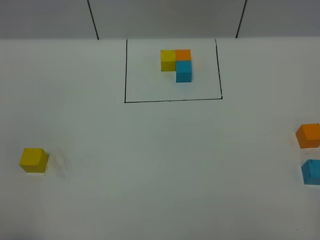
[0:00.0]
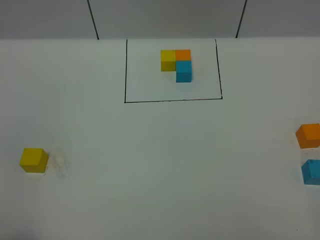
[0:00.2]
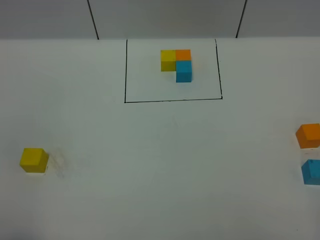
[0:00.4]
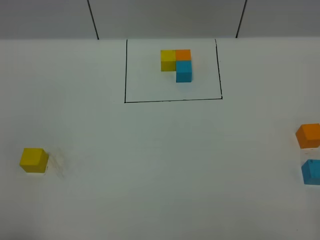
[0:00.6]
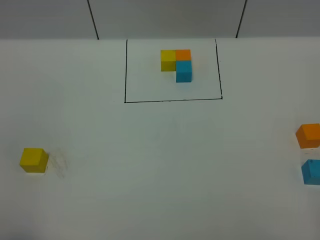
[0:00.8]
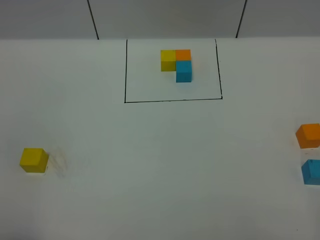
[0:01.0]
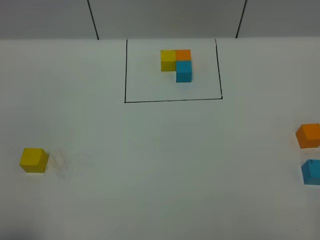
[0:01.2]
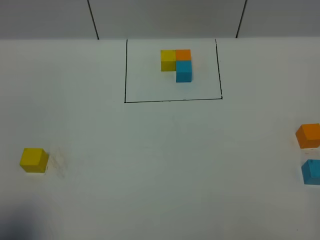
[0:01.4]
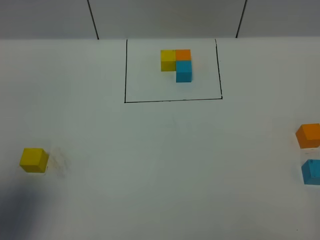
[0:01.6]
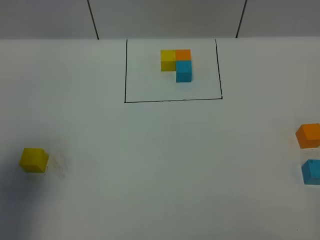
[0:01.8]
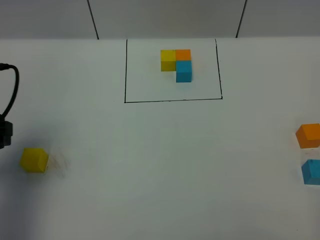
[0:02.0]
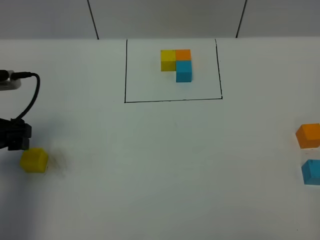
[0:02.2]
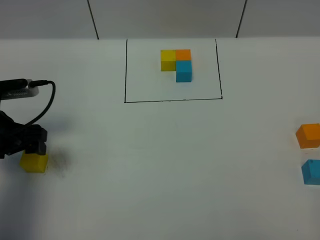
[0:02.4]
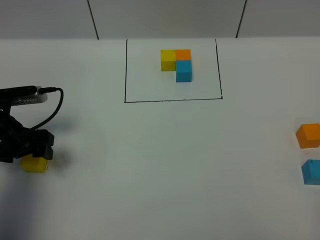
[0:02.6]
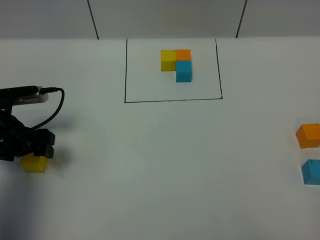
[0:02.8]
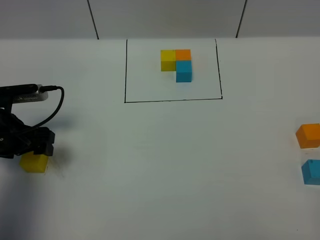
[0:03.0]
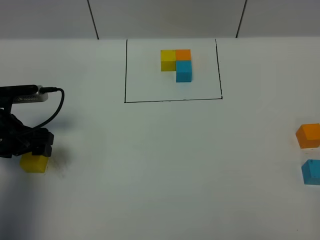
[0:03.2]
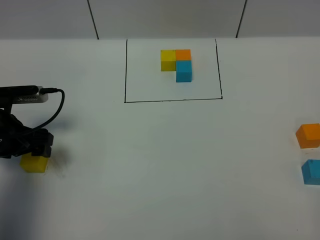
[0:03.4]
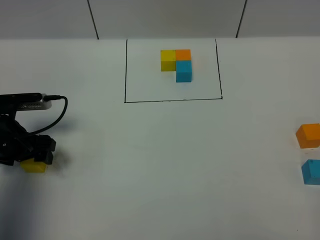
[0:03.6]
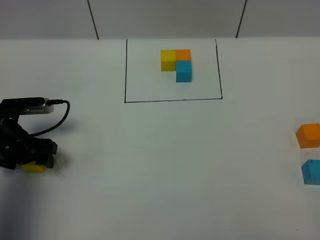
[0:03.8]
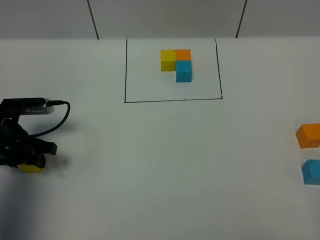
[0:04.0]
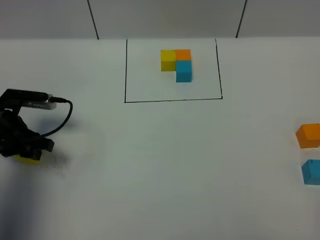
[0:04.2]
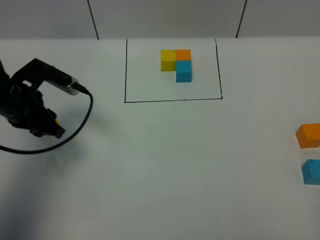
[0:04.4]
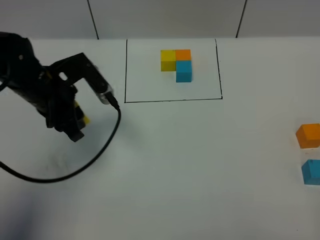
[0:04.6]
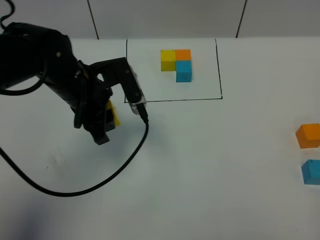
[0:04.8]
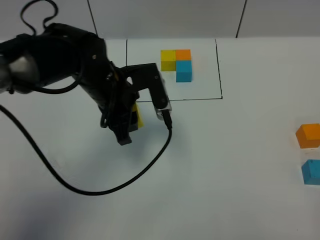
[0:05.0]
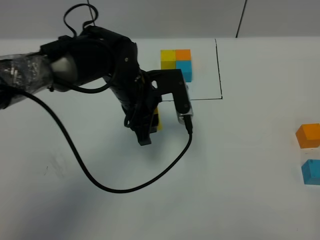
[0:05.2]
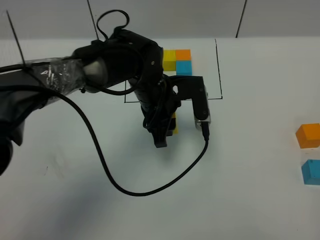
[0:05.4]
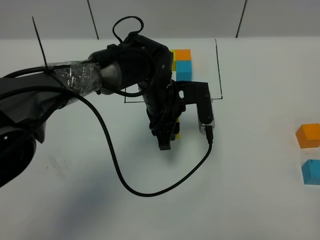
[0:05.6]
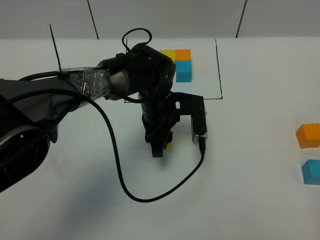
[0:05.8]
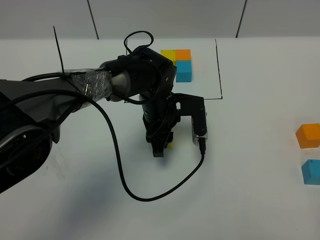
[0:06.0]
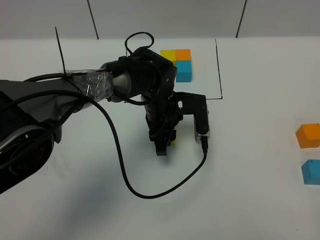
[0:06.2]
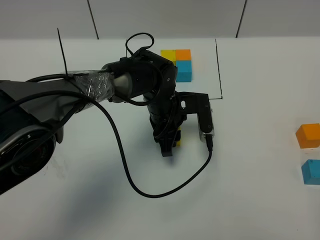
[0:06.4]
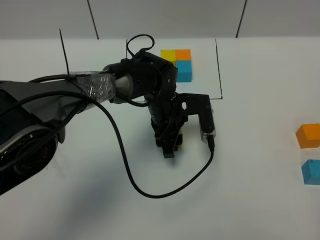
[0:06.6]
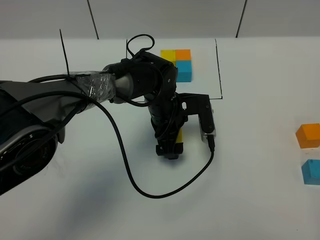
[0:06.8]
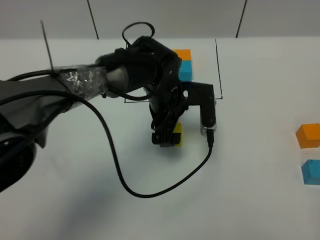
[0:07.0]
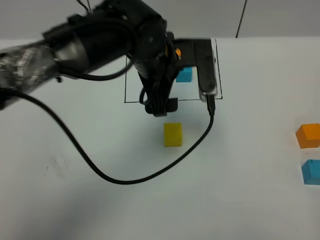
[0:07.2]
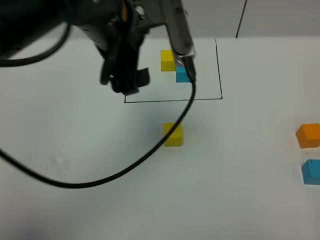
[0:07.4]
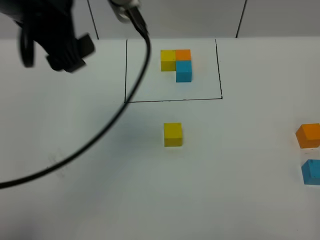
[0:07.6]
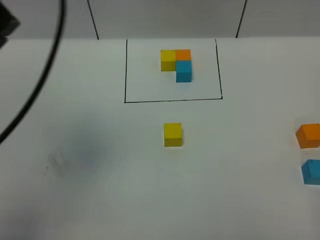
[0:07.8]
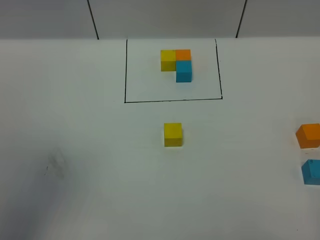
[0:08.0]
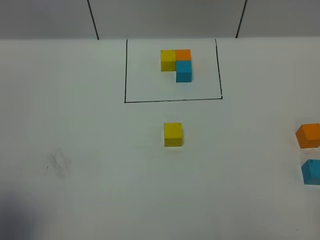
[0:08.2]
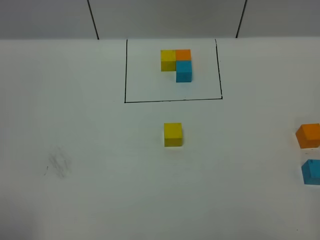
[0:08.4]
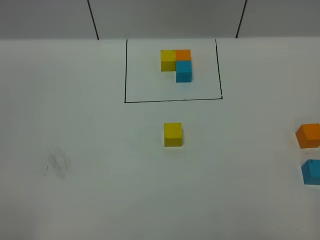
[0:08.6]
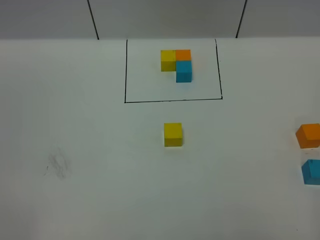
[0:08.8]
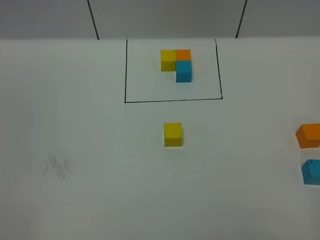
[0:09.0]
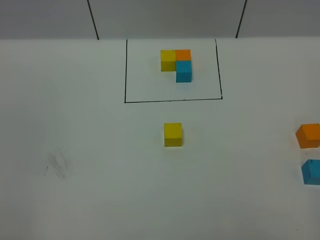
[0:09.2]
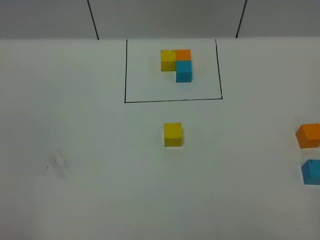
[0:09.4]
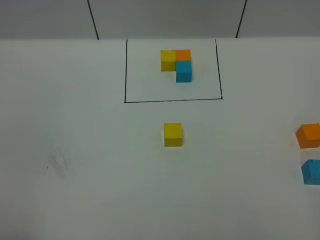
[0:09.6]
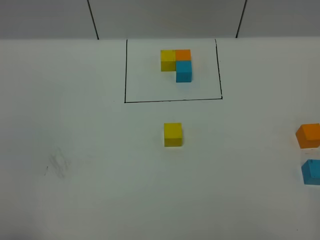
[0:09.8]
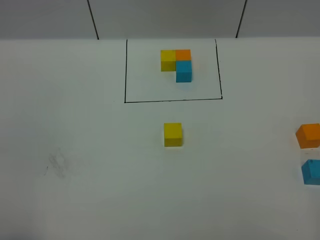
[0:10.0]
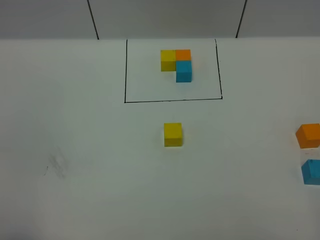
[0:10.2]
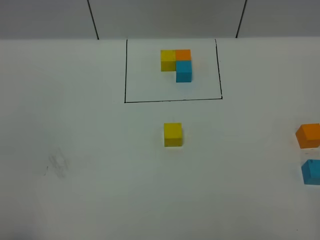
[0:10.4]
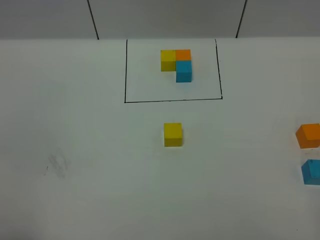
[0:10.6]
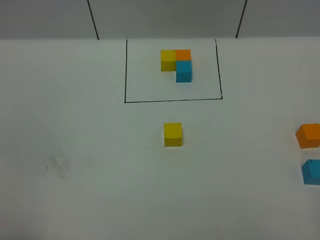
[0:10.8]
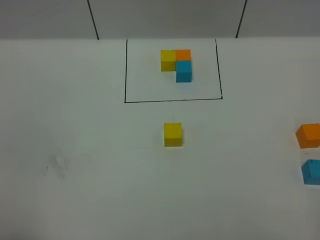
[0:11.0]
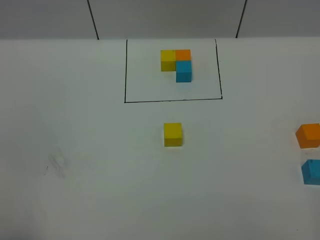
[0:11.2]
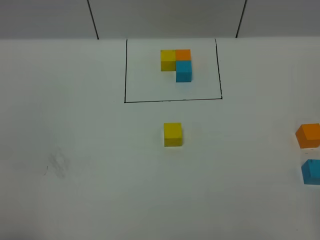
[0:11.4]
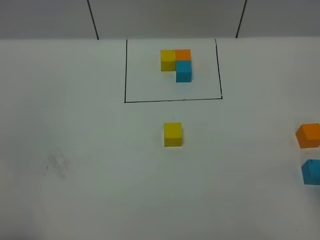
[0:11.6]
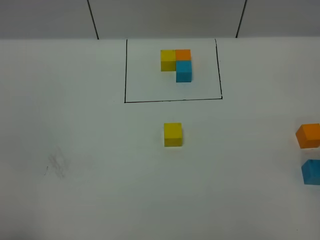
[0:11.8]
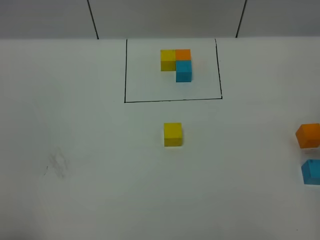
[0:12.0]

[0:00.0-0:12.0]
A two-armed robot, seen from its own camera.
Task of the whole recording: According to the building block template in front, assemble the scattered blocks together.
Step, 0:01.8 to 0:07.0: Put the yellow cube in the center of the table.
0:00.0 to 0:01.6: The left gripper heads forward, covering roughly 15 cm.
0:01.6 to 0:03.0: The left gripper moves downward and forward, approximately 25 cm.
0:03.0 to 0:04.4: The left gripper moves to the right, approximately 5 cm, and closes.
0:04.4 to 0:06.0: The left gripper moves to the right, approximately 25 cm.
0:06.0 to 0:07.6: The left gripper travels upward and to the left by some 35 cm, and opens up.
0:07.6 to 0:09.0: The left gripper heads backward and to the left, covering approximately 35 cm.

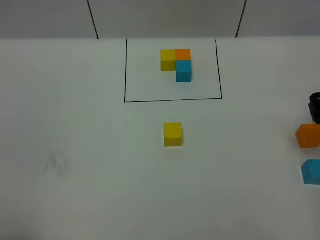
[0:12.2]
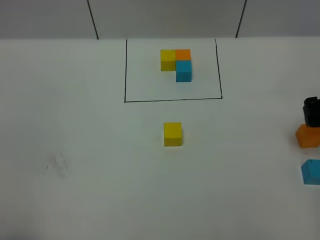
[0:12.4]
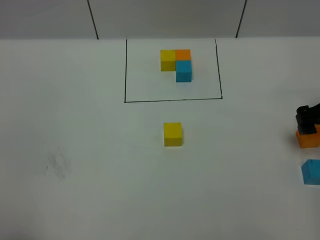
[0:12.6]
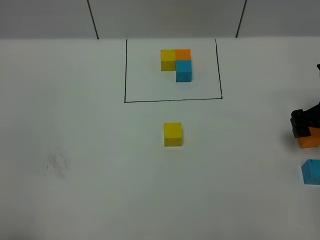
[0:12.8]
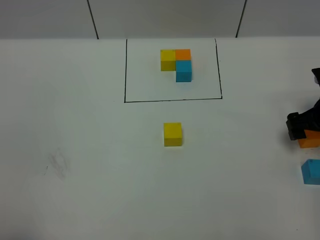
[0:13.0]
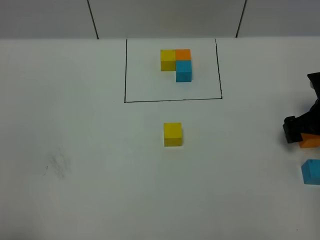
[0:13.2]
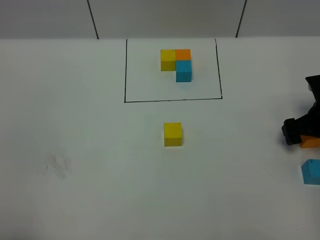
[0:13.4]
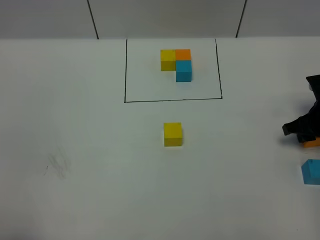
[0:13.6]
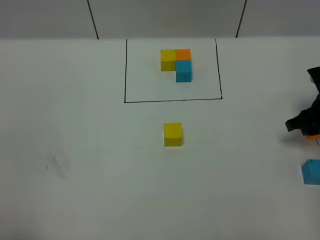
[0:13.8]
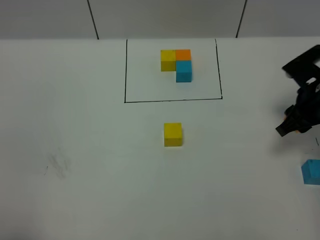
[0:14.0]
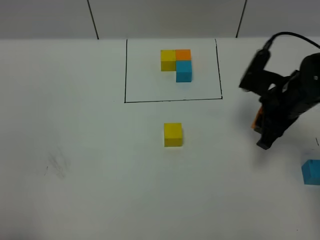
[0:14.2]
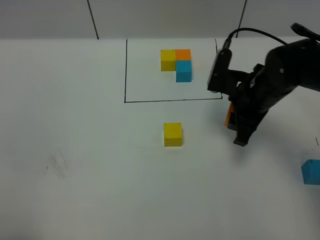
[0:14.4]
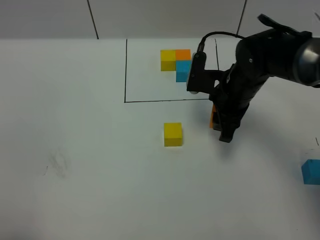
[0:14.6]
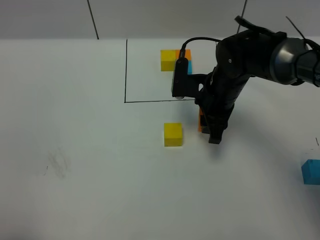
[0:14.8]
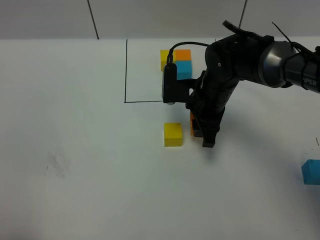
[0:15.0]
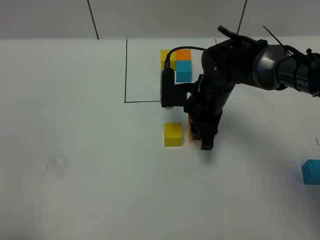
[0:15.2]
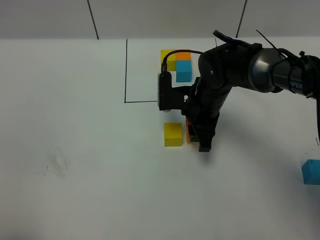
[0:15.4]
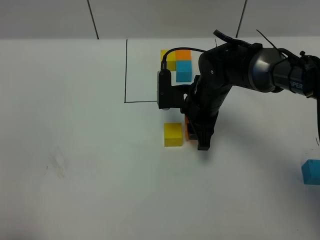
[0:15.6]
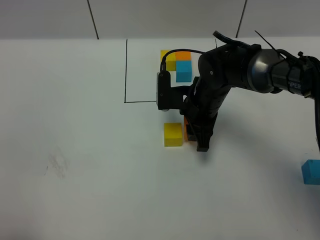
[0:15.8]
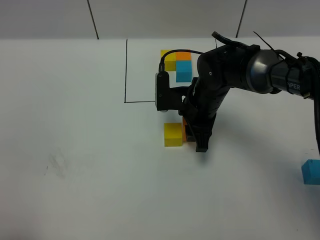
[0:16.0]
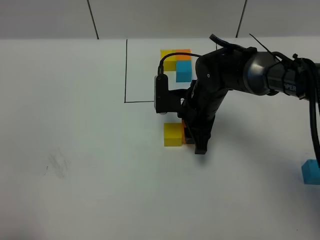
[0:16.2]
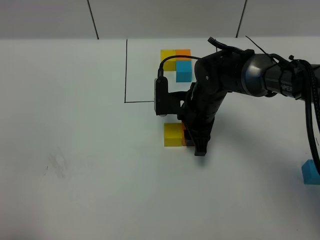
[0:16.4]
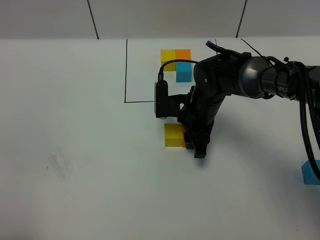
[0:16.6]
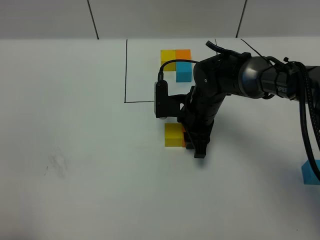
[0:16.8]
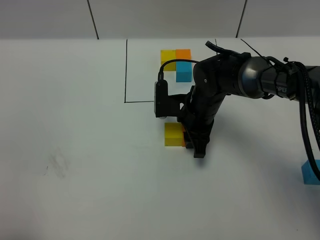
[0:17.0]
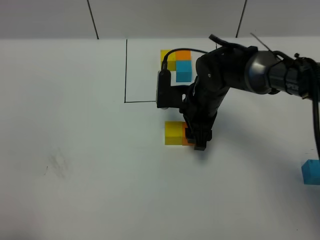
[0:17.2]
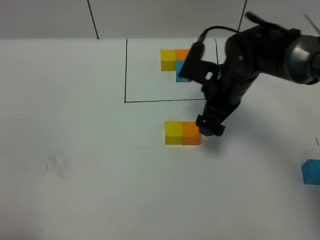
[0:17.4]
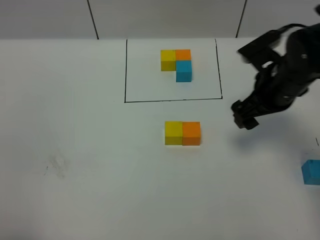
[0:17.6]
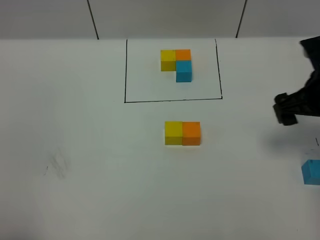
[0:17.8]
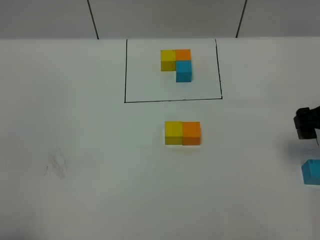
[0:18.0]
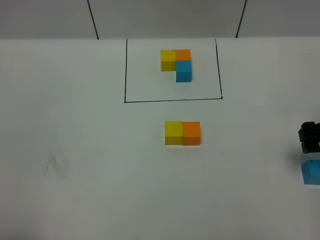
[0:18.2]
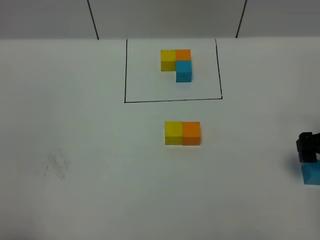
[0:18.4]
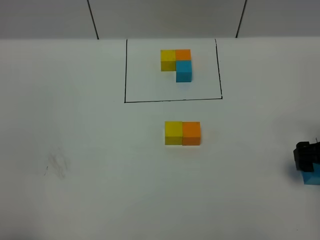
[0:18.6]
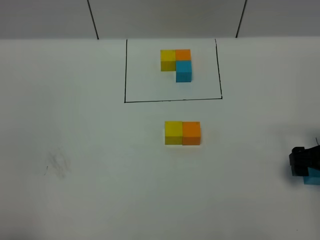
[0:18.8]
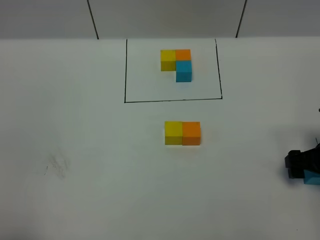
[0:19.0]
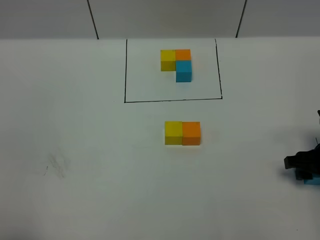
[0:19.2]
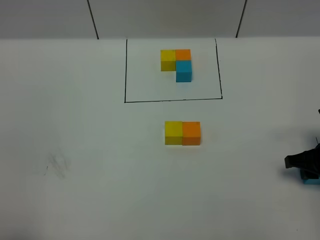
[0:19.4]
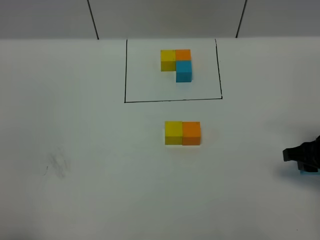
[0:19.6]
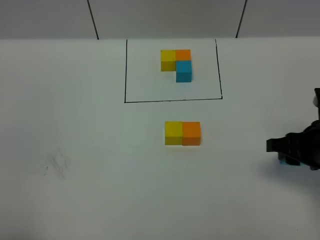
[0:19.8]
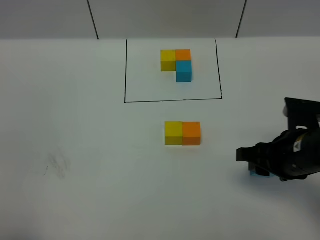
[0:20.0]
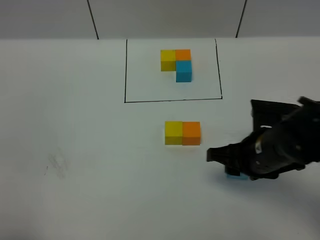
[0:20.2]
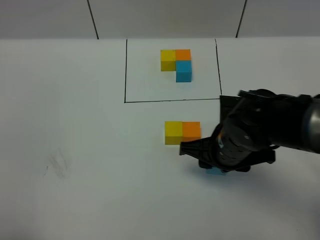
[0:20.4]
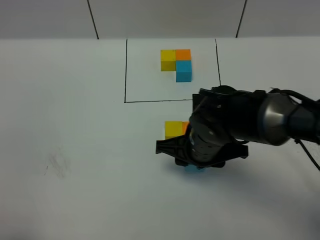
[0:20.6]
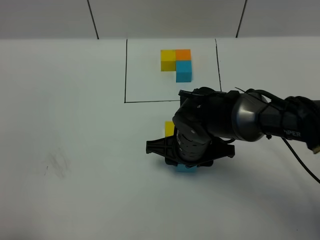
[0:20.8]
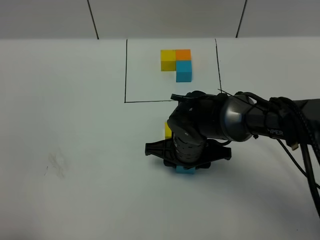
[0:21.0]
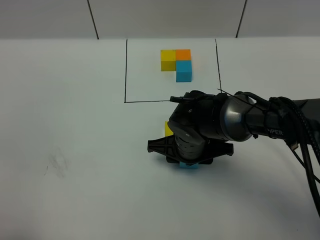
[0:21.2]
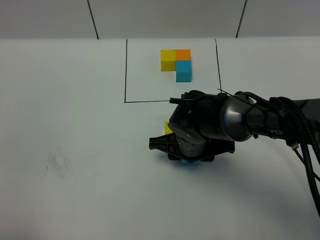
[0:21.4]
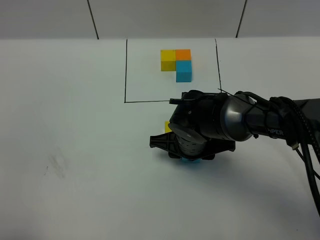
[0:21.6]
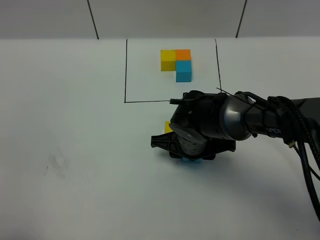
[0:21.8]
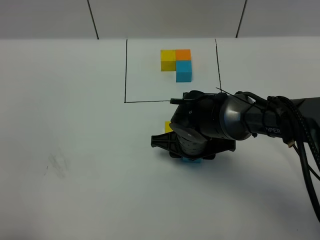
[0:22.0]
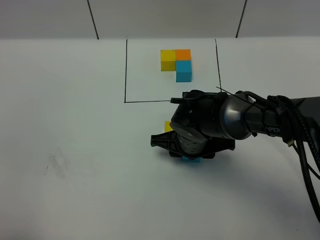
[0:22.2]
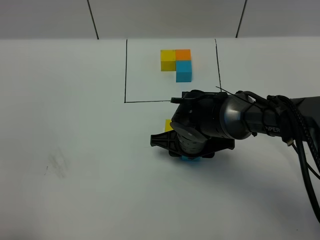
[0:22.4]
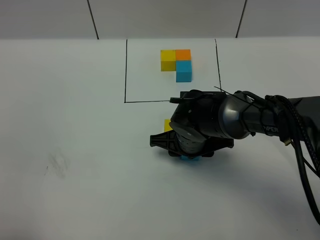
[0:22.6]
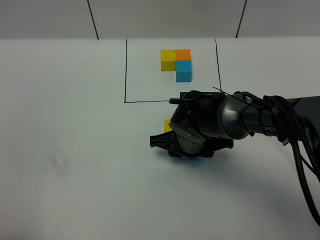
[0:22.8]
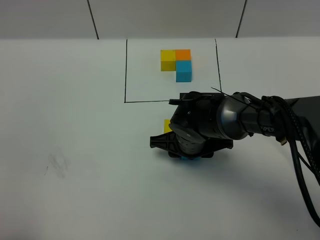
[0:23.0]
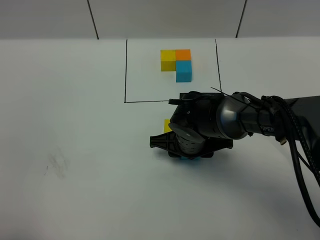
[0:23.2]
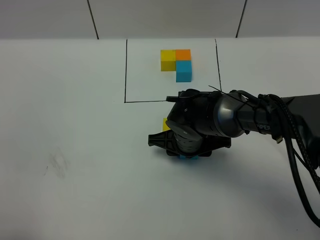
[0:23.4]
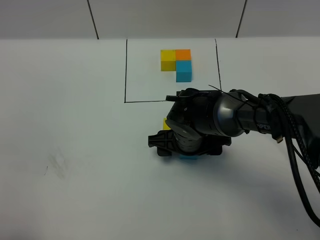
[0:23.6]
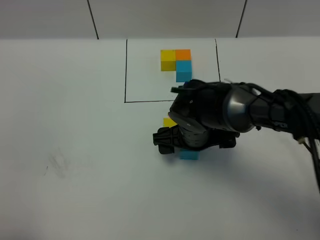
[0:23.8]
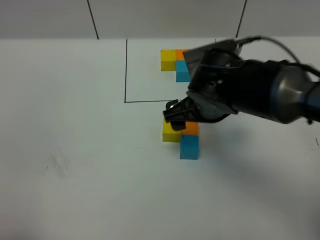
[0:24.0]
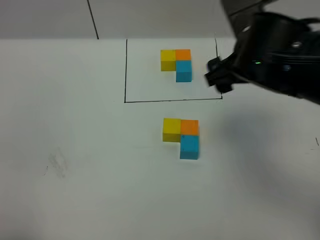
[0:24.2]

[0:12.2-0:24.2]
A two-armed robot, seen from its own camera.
Task of the whole recording: According to the building block template in front, assemble the scattered blocks together.
Step, 0:12.2 to 0:17.2: Put the orange cube on the right of the yellow cube.
Step, 0:17.4 to 0:23.8: Put the blue cube in the front of the orange cube.
0:12.2 to 0:13.8: The right gripper is displaced downward by about 10 cm, and closes.
0:13.8 to 0:15.2: The right gripper is displaced to the left by roughly 25 cm.
0:15.2 to 0:16.6: The grippers move only a little.
0:16.6 to 0:18.2: The right gripper goes some 25 cm to the right and backward, and opens.
0:18.2 to 0:19.8: The right gripper travels to the left by about 5 cm, travels downward and back again, approximately 10 cm each way, and closes up.
0:19.8 to 0:21.2: The right gripper travels to the left by some 20 cm.
0:21.2 to 0:22.6: The grippers move only a little.
0:22.6 to 0:24.2: The right gripper travels upward and to the right by about 25 cm, and opens up.
